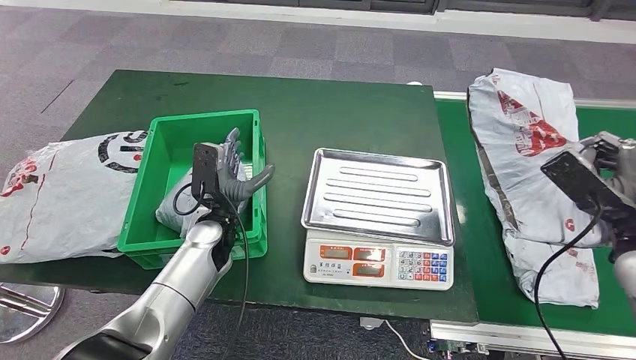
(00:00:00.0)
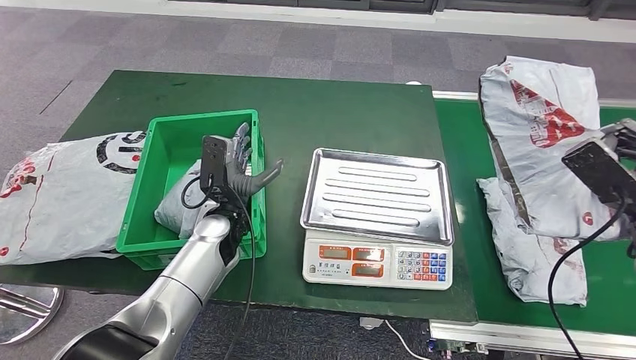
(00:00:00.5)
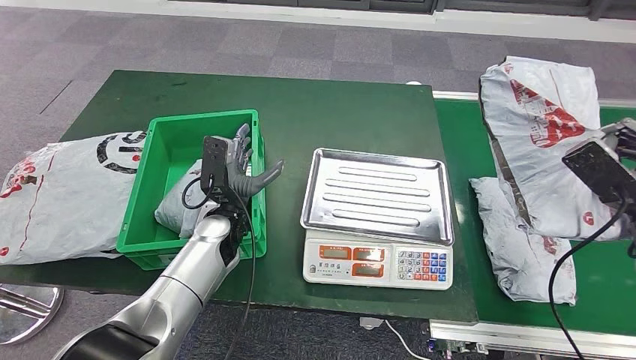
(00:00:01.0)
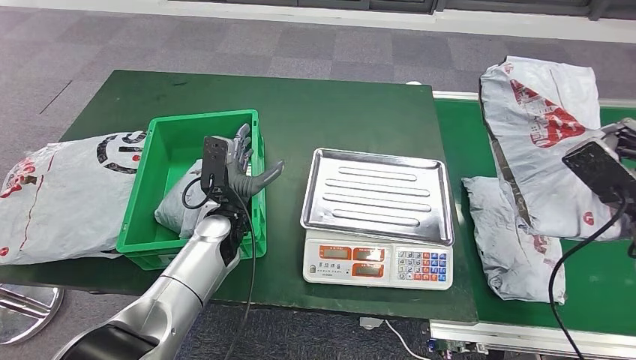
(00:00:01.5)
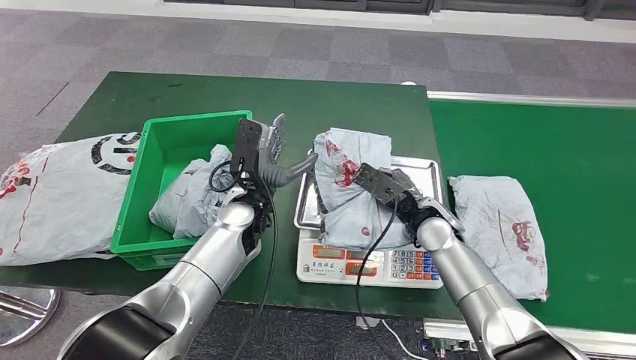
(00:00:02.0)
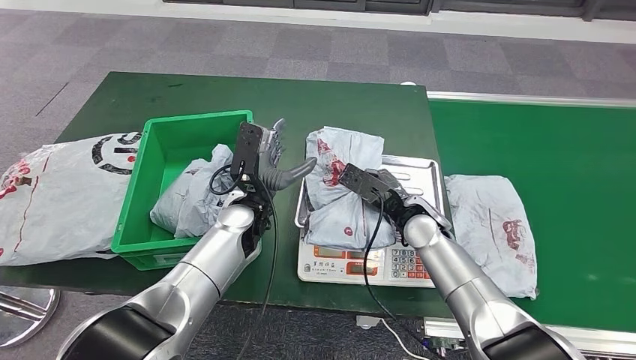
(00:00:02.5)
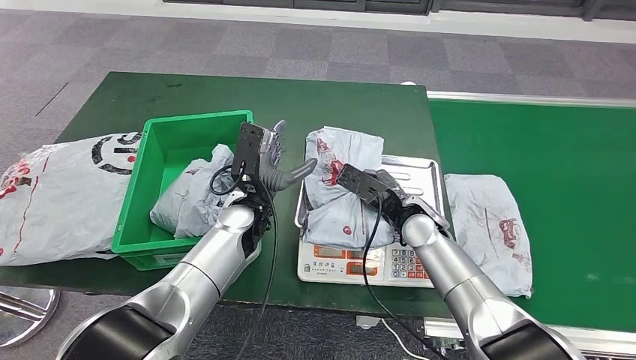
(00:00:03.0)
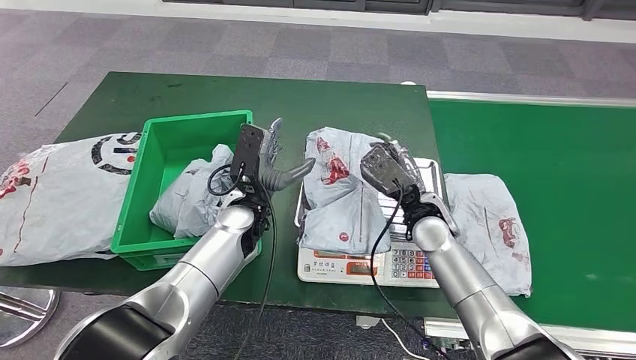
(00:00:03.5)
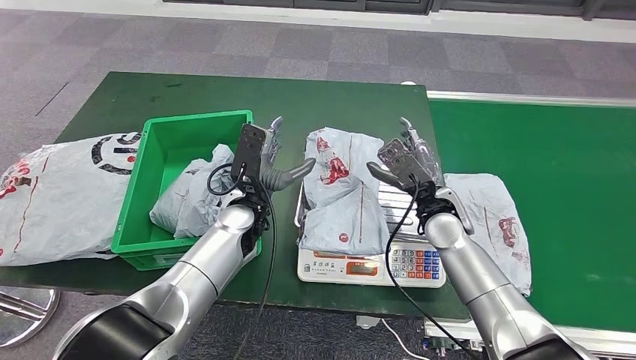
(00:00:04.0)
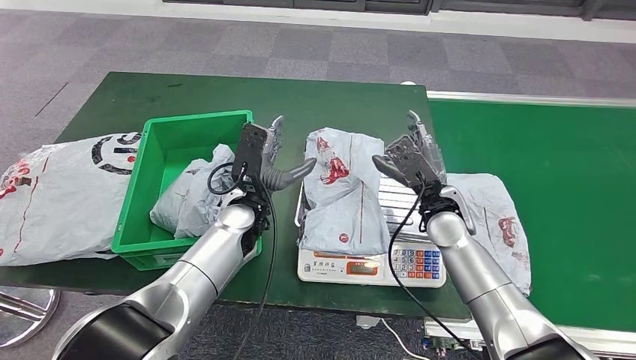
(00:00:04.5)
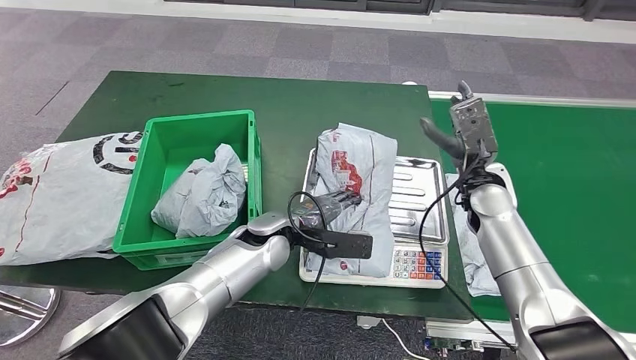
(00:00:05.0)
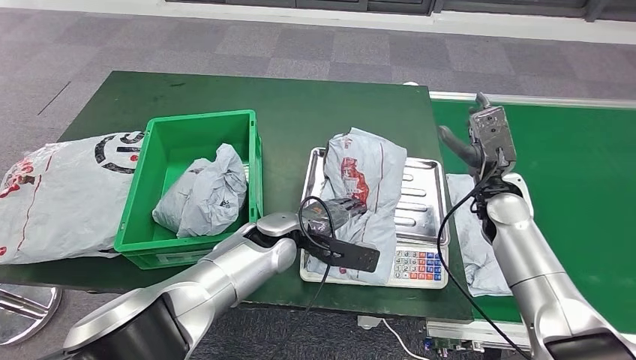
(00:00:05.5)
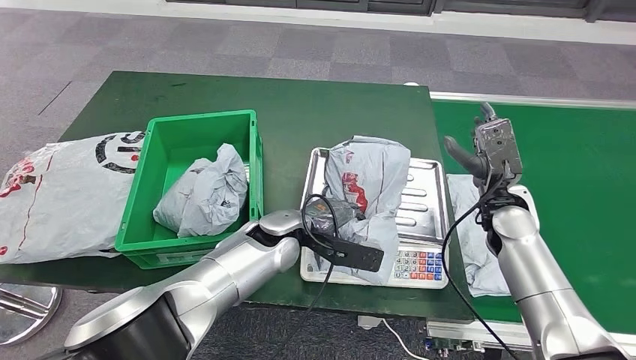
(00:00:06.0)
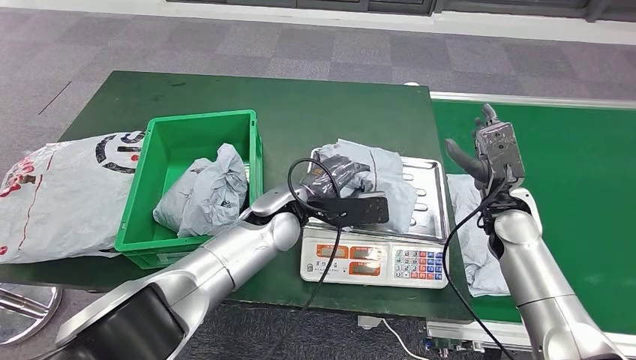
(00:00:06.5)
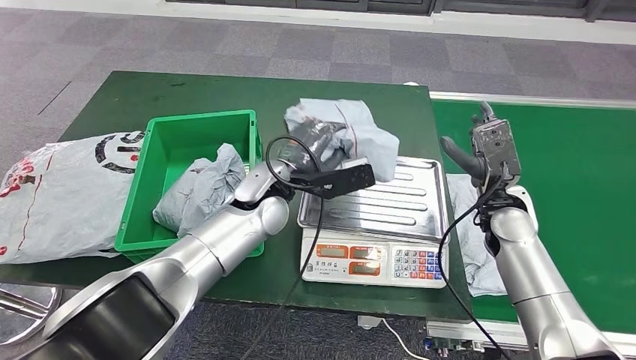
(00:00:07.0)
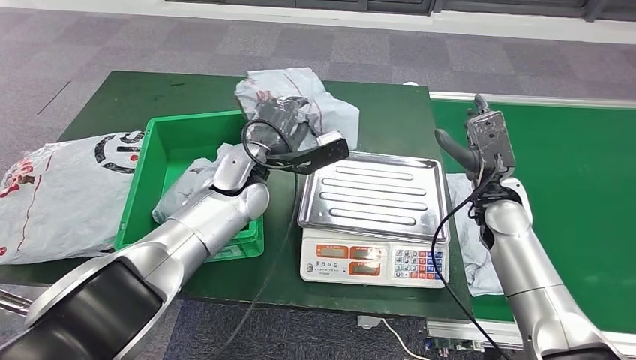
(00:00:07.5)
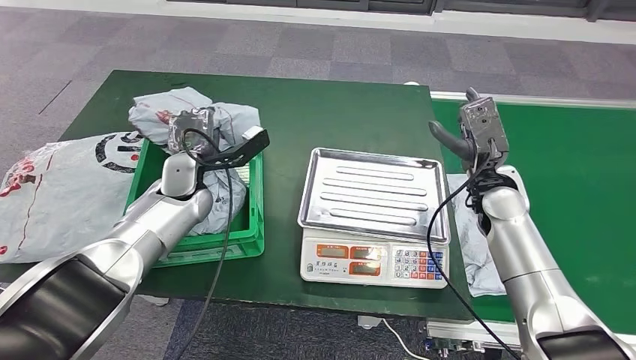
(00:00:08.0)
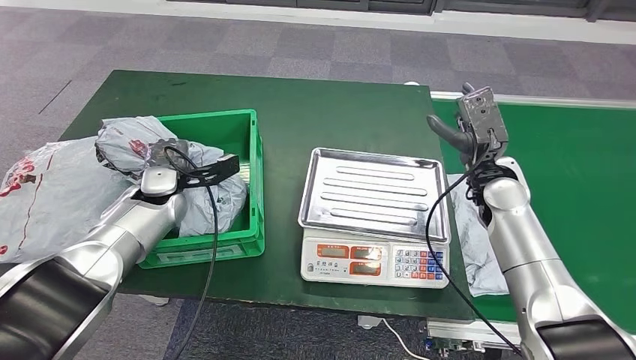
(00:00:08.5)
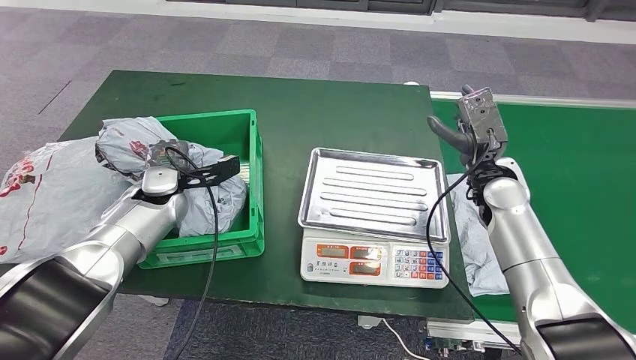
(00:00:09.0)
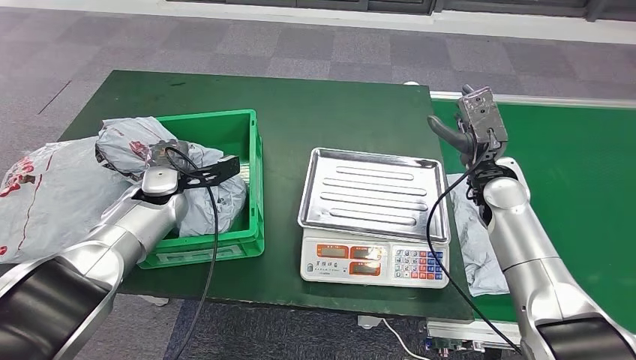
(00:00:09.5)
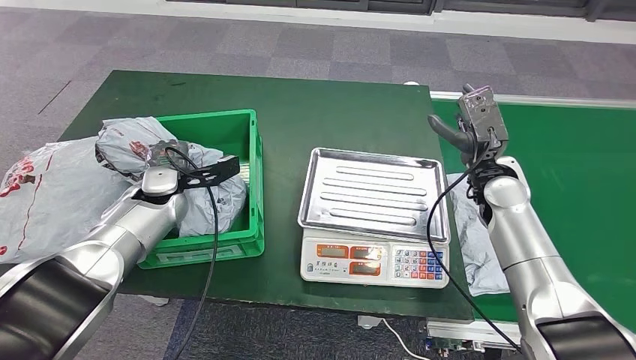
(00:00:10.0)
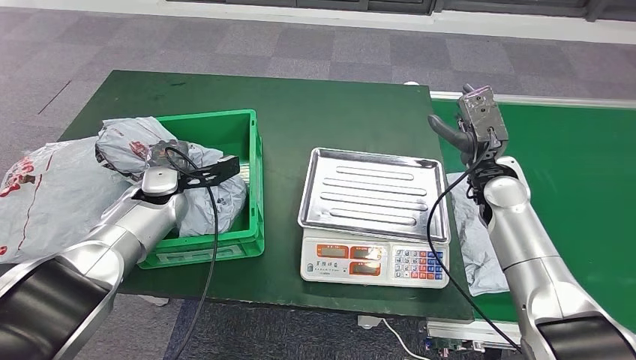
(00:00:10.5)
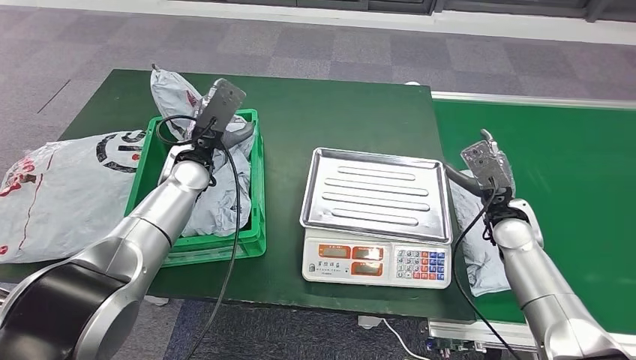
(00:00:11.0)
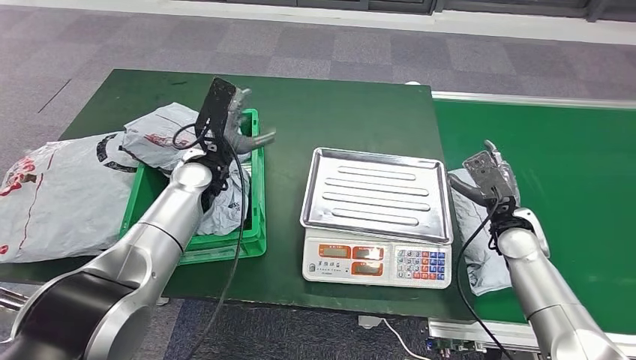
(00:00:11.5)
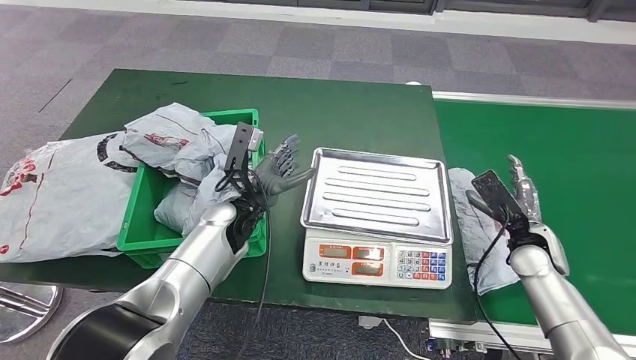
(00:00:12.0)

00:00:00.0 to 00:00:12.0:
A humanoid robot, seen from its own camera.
Step, 00:00:00.0 to 00:00:04.5: Place the parcel onto the inbound machine.
Step, 00:00:05.0 to 00:00:07.5: Pick up the parcel from the inbound machine.
00:00:08.0 to 00:00:10.0: The left hand goes about 5 cm to the left.

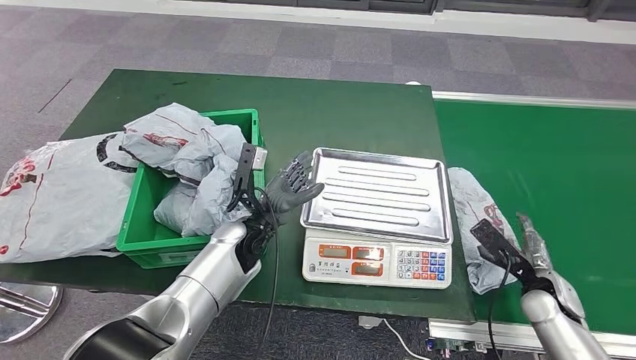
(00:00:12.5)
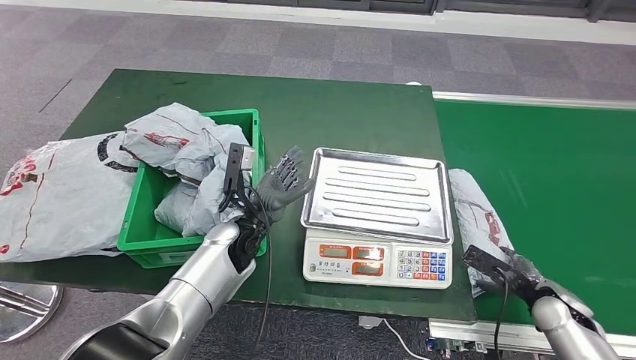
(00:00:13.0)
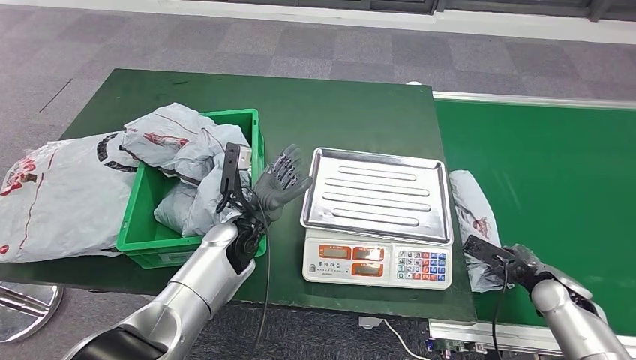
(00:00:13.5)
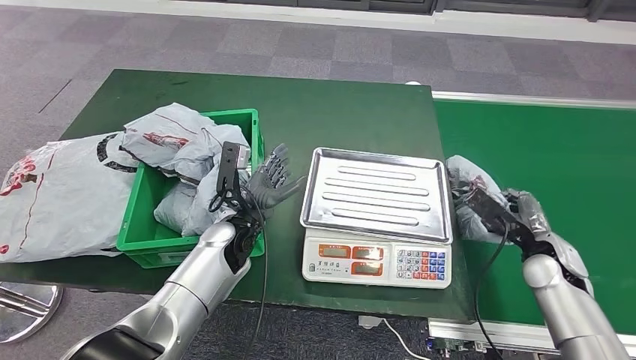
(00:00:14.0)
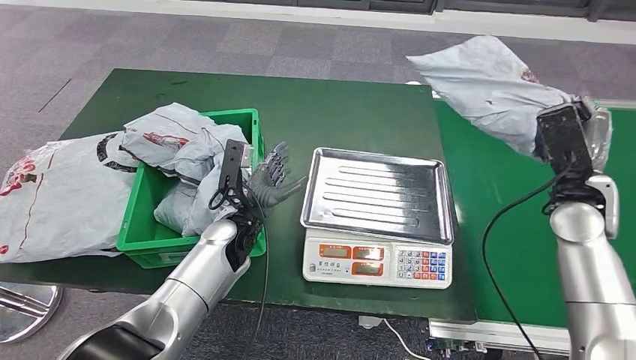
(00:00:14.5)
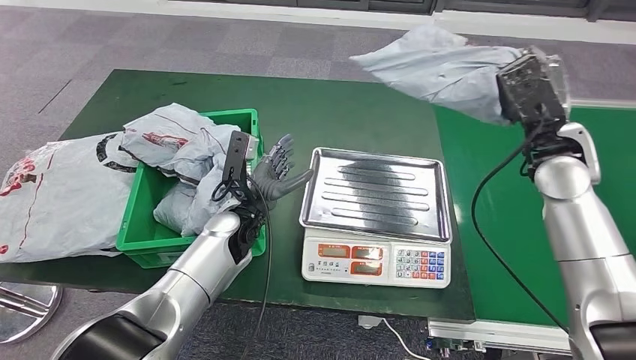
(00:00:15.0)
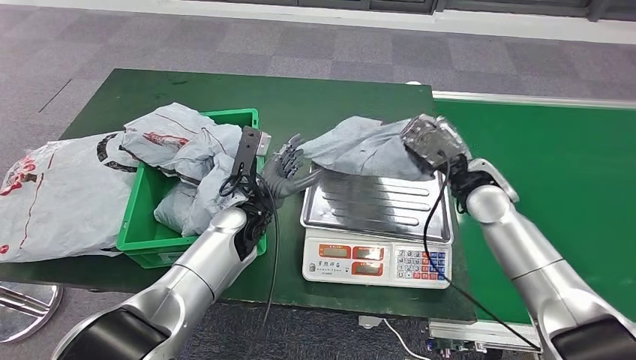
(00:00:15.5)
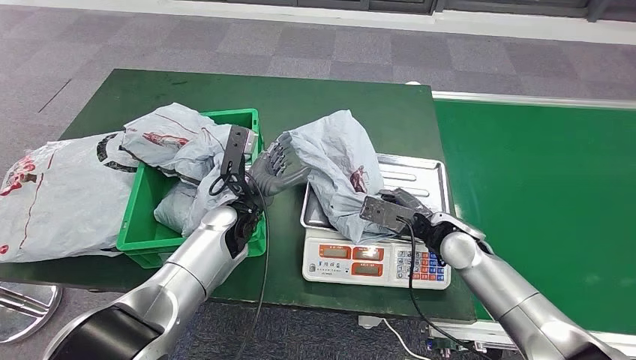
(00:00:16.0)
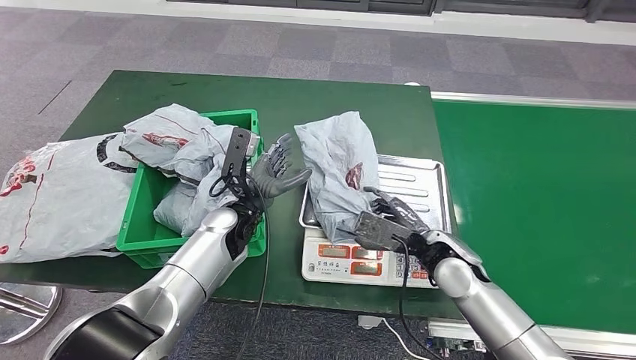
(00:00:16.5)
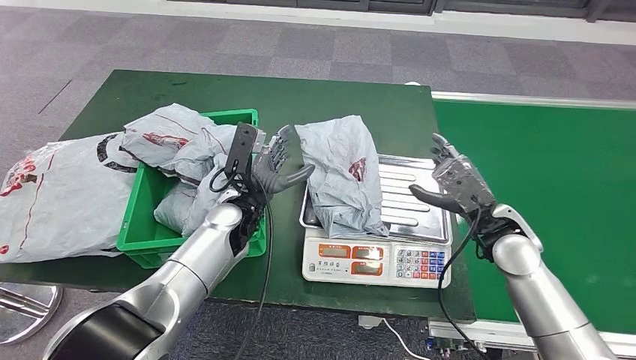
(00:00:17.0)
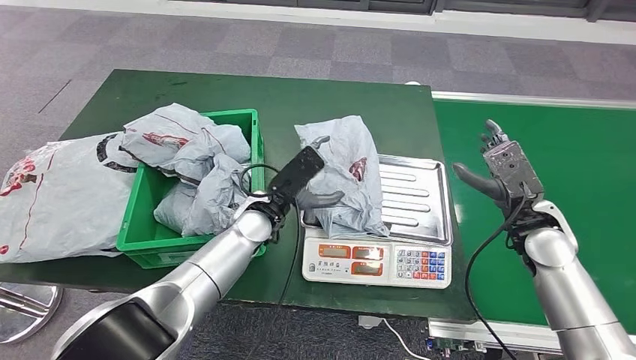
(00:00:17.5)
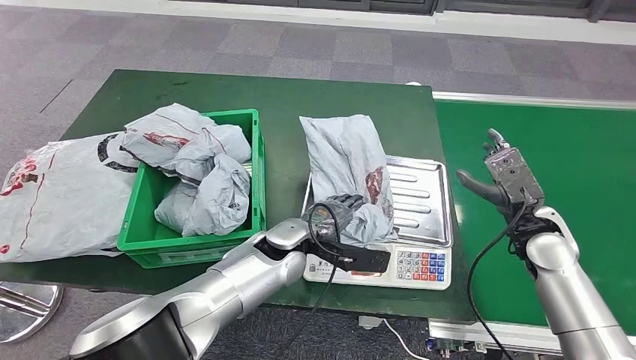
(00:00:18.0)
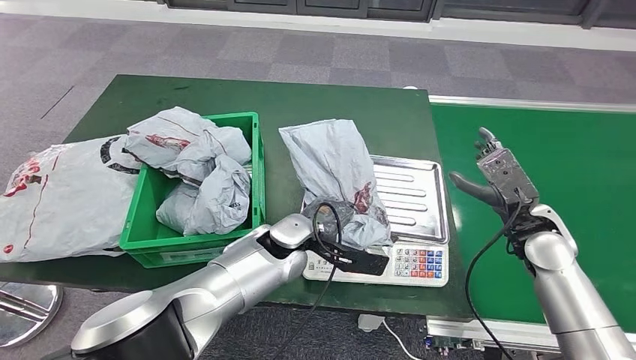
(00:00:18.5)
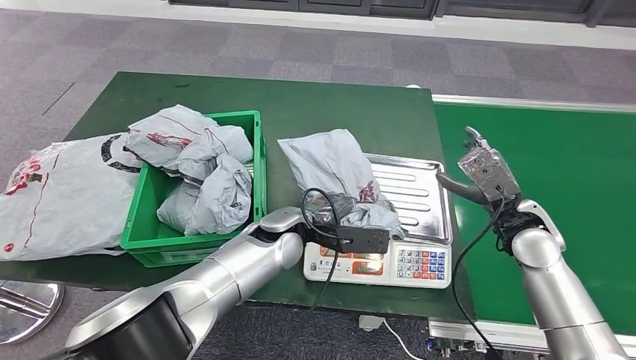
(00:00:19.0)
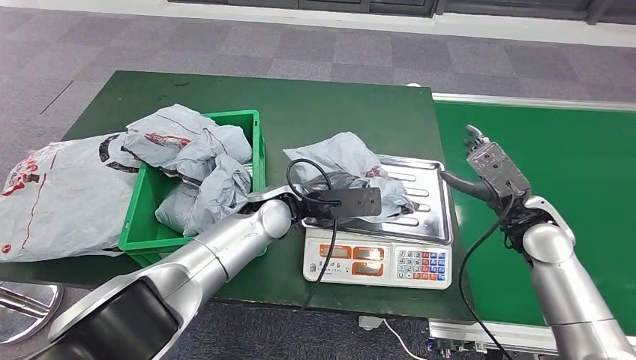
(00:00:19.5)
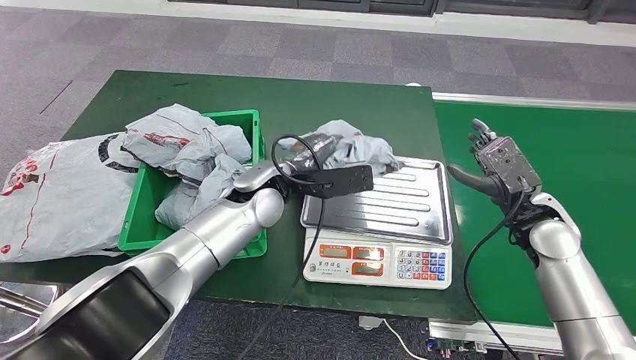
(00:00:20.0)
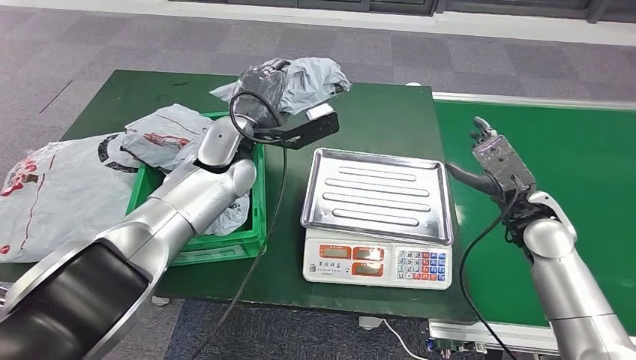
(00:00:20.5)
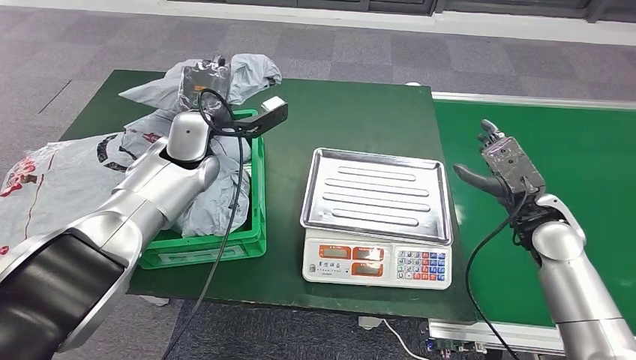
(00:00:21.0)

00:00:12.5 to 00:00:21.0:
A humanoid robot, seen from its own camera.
Step, 00:00:13.5 to 00:00:14.5: Pick up the parcel from the conveyor belt.
Step, 00:00:15.0 to 00:00:17.0: Place the parcel onto the inbound machine.
Step, 00:00:17.5 to 00:00:20.5: Pick up the parcel from the inbound machine.
